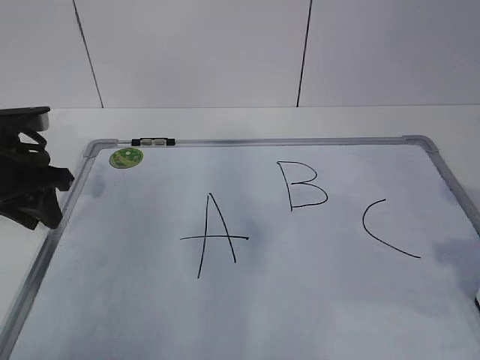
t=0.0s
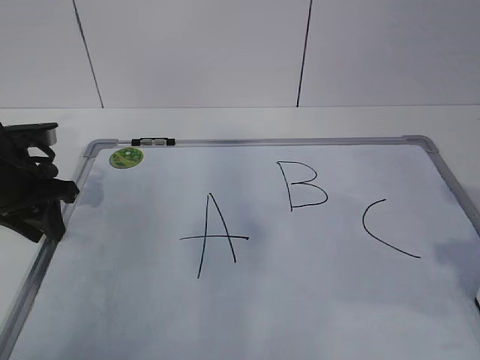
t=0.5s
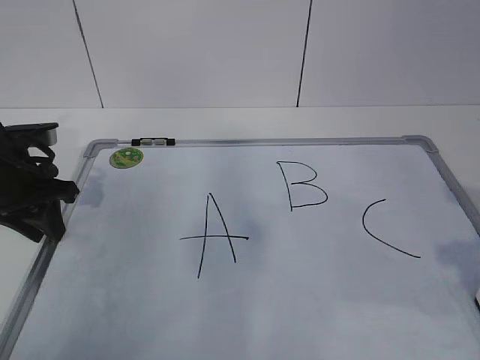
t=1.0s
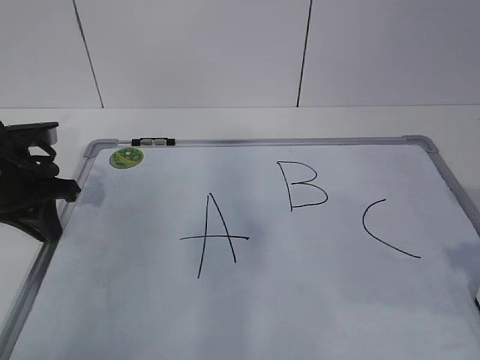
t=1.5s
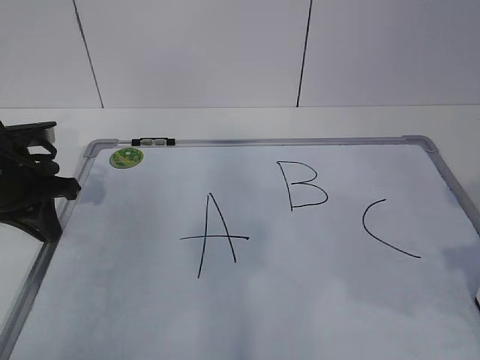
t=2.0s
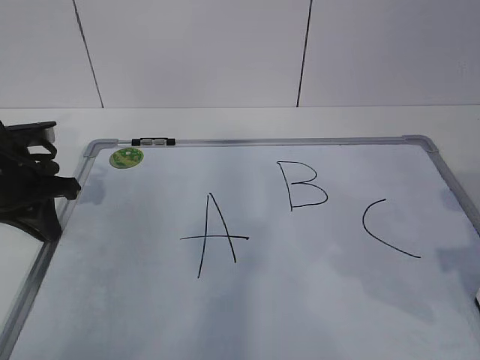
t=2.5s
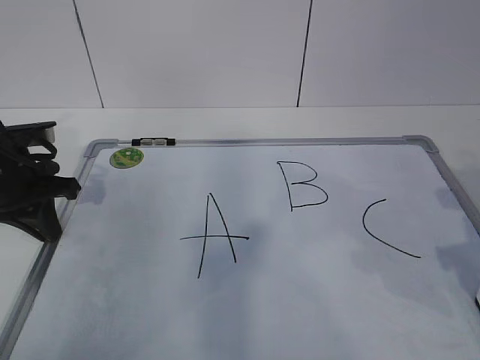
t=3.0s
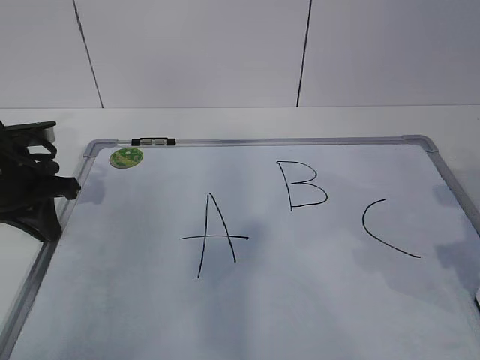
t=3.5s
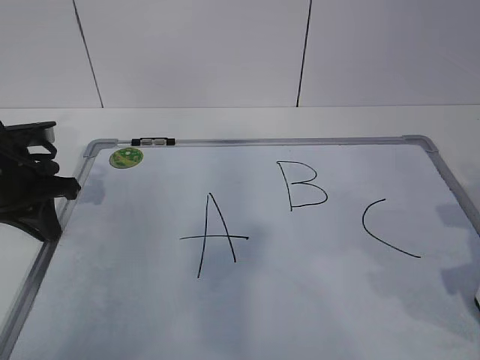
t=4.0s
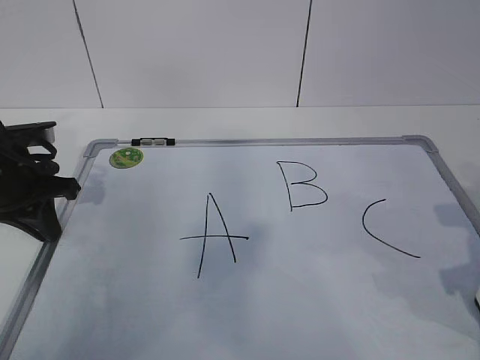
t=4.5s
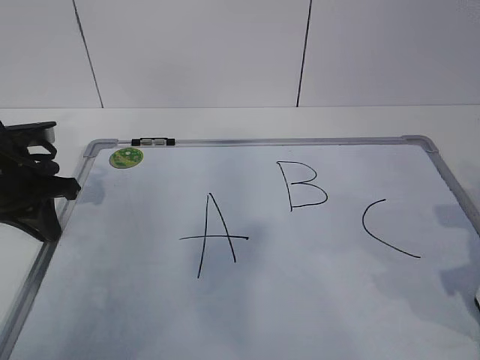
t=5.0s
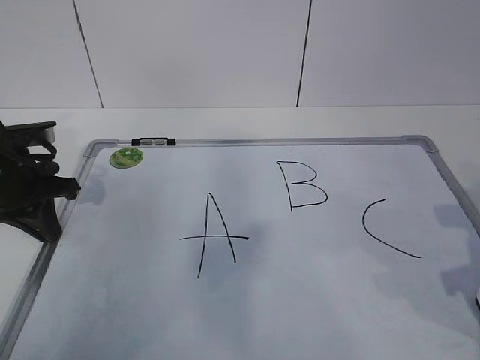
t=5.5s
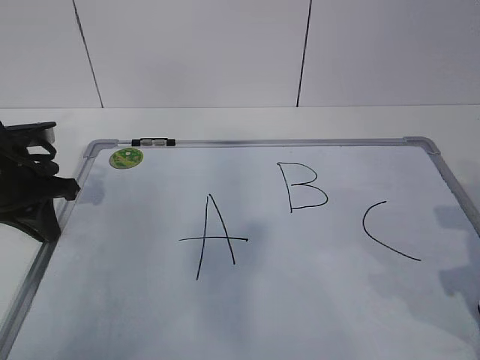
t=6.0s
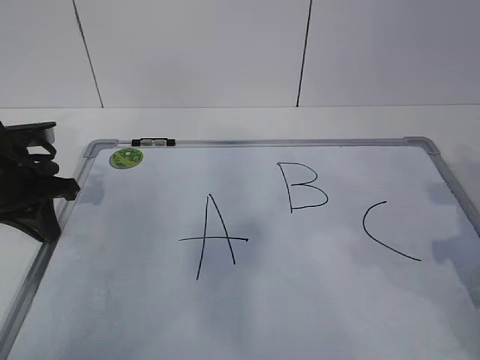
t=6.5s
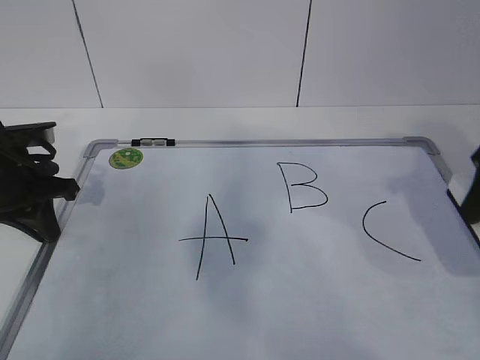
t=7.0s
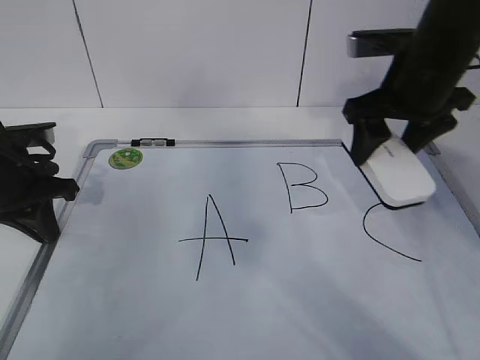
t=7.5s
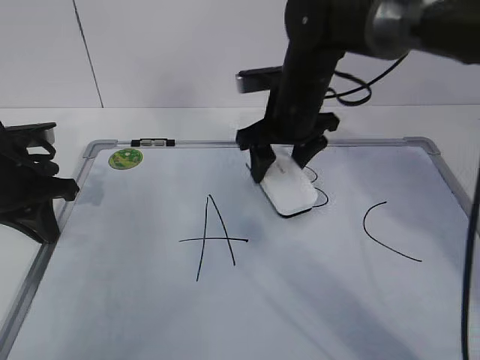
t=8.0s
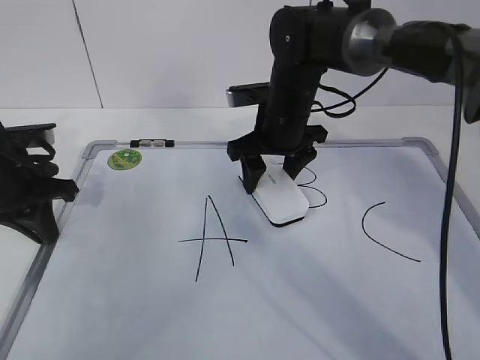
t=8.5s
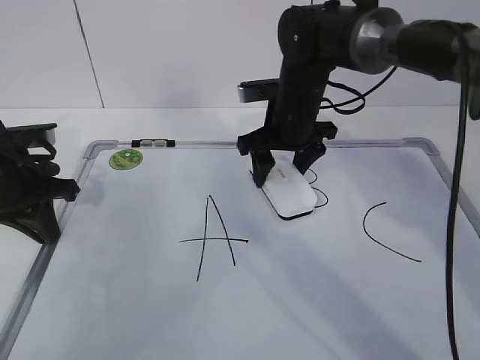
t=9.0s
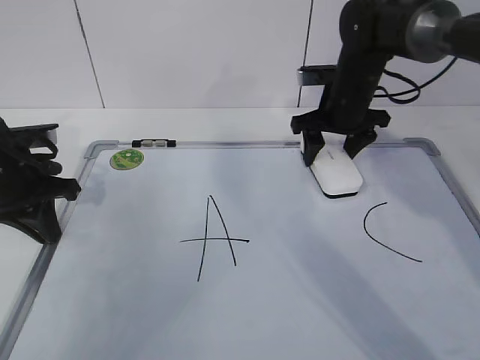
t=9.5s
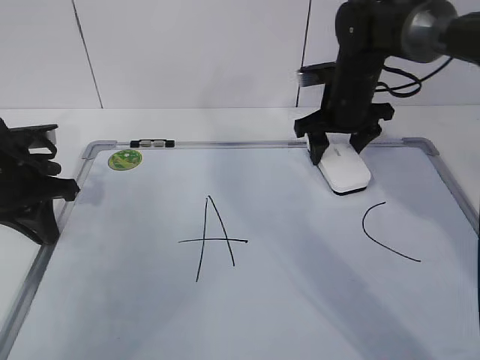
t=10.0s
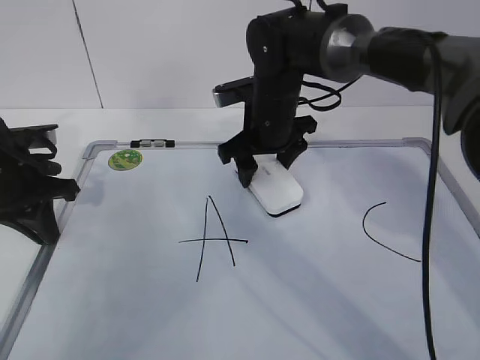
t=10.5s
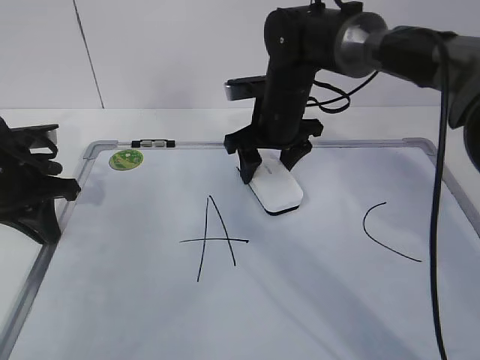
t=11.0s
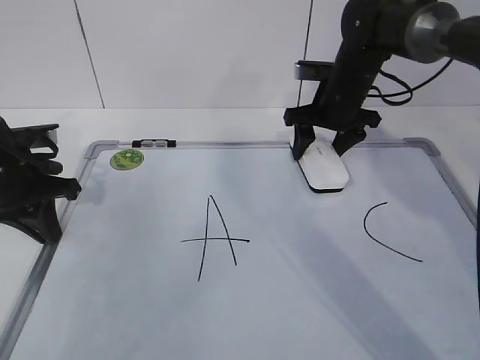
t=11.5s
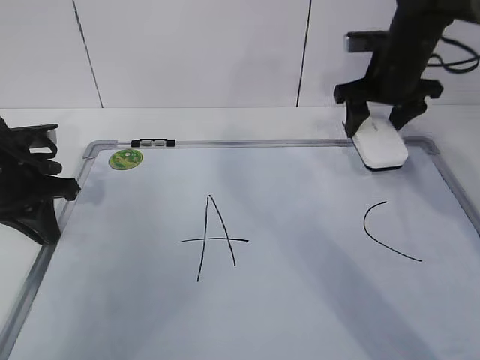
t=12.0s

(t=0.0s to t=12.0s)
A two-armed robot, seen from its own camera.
Task of the whole recording: pick up the eraser on the blackboard and erase the letter "B".
Step, t=4.5s - t=9.0s: Erase the letter B with your right hand.
Step, t=9.5s - t=11.5s: Put down the eraser with your right hand.
t=0.0s - t=2.0s: The left gripper closes its fingers.
t=4.0s - t=6.0s: Both grippers stay put.
t=6.0s - t=8.0s: The right gripper goes approximately 30 cm forward and to the left.
t=8.0s - t=10.0s: The right gripper travels to the right by some 10 cm.
t=10.0s - t=12.0s: The right gripper reaches about 10 cm to the left, then returns.

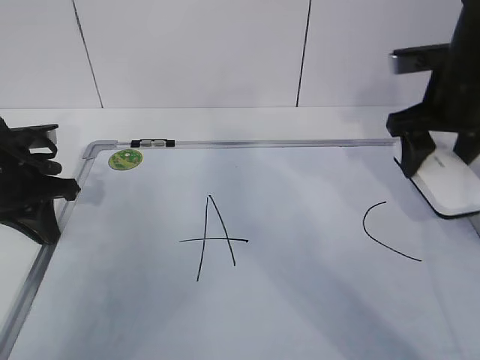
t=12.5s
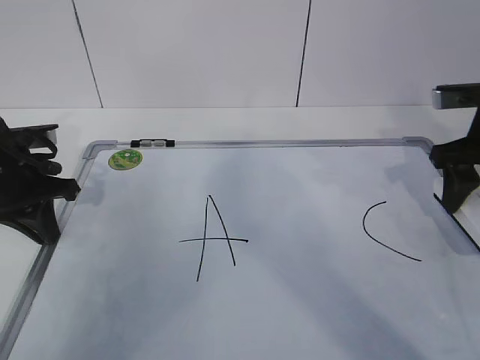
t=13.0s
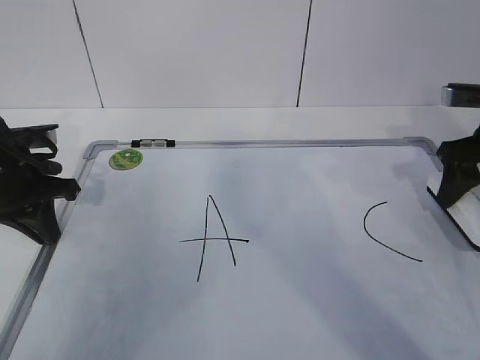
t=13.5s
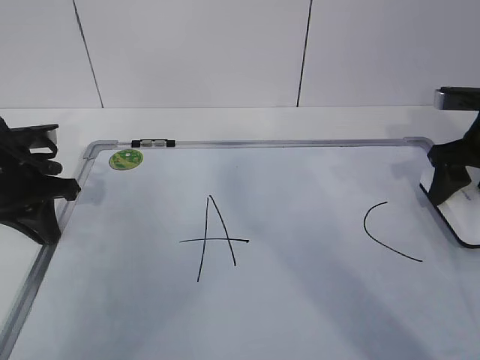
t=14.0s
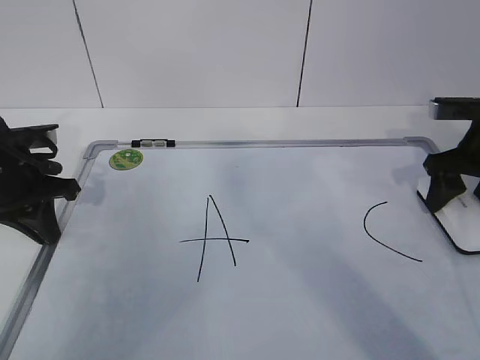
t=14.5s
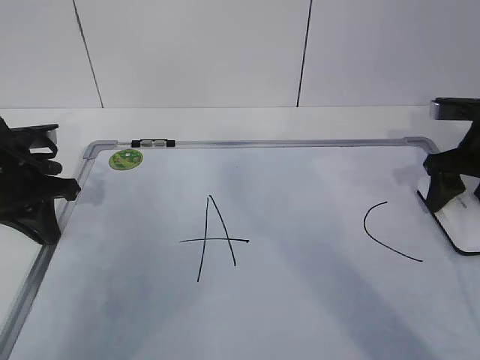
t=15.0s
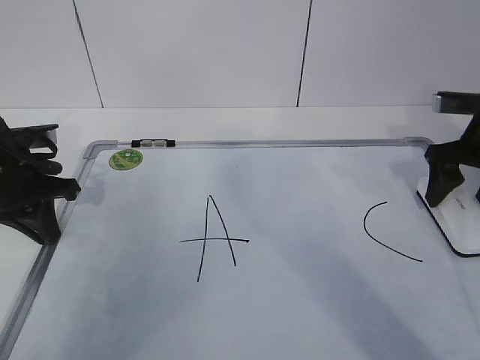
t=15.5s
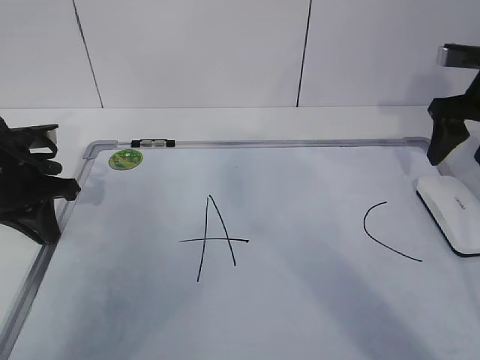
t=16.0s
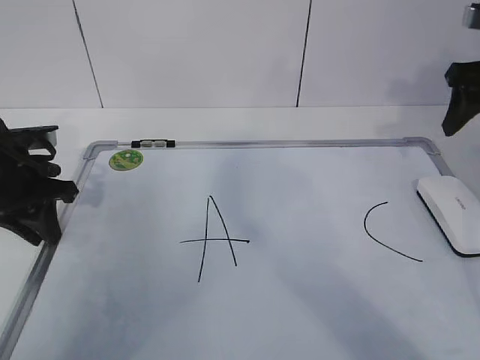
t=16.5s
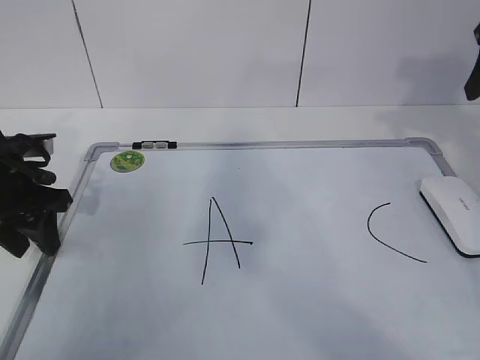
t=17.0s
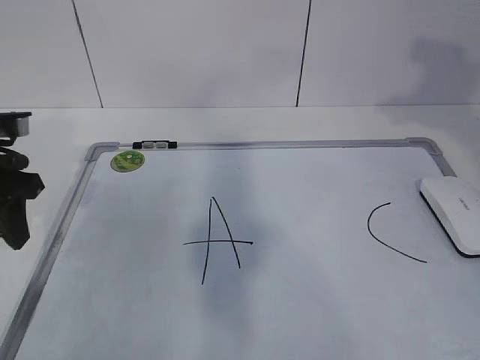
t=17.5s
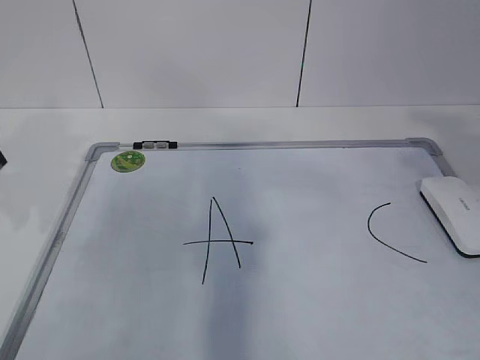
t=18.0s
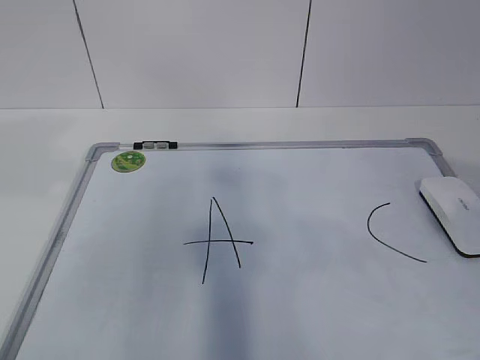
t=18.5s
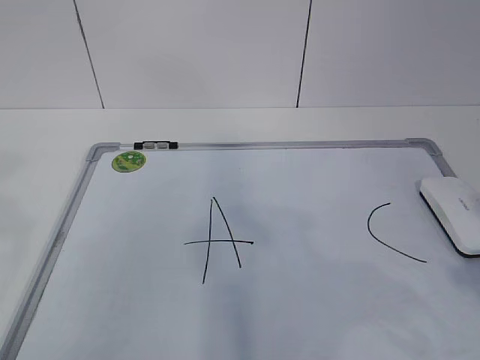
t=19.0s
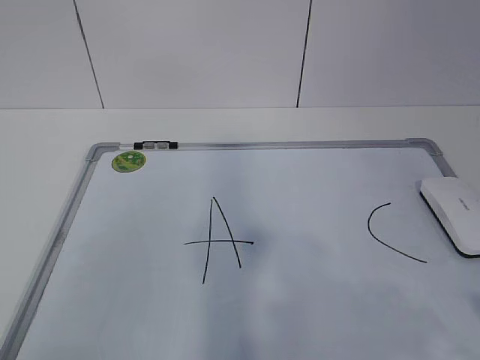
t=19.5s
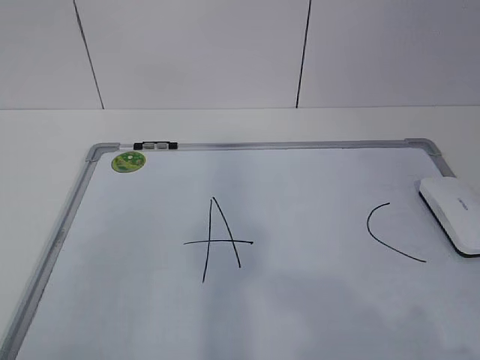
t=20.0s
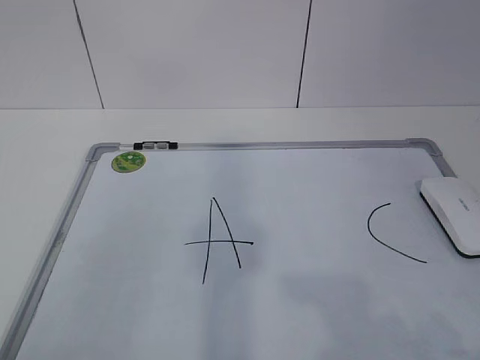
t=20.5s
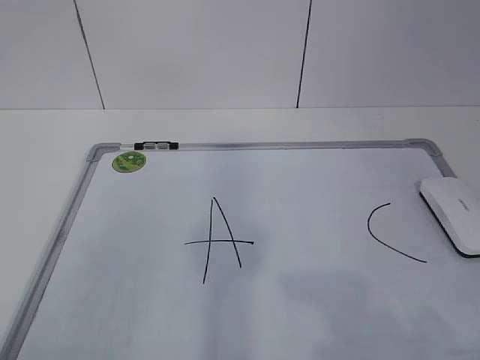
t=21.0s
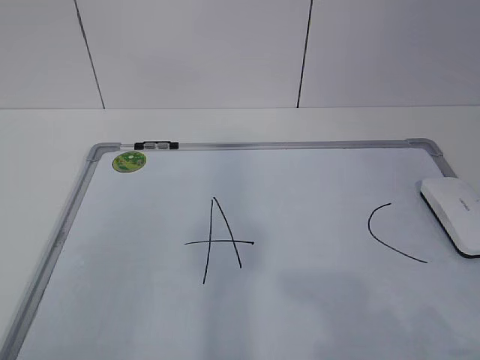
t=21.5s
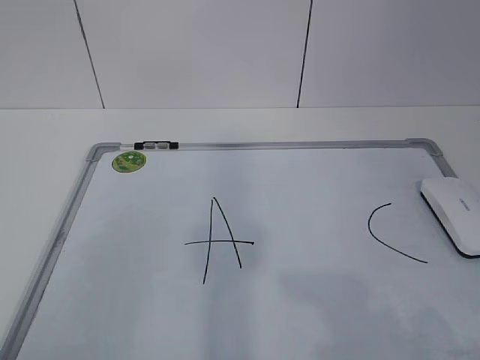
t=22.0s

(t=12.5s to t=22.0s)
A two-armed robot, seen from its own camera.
Task of the whole recording: pick up the eraser on the blackboard and erase the letter "B".
t=12.5s - t=14.5s: The right gripper is displaced to the right and downward by some 10 cm.
t=14.5s - t=16.5s: The right gripper travels upward by about 10 cm.
t=16.5s - t=18.0s: The right gripper shifts about 25 cm backward and upward. Meanwhile the left gripper moves upward and backward, approximately 10 cm, and opens its fingers.
t=18.0s - t=20.0s: The right gripper is displaced backward and downward by some 20 cm, and closes its fingers, while the left gripper heads backward, covering some 30 cm.

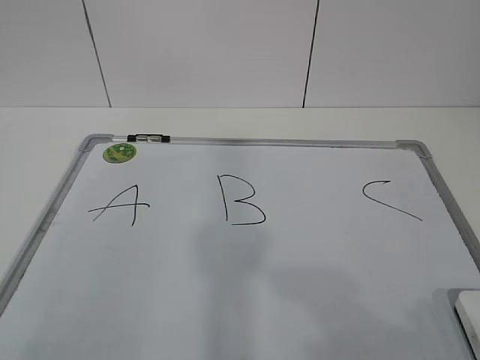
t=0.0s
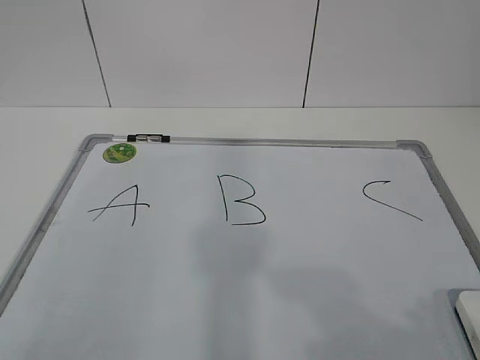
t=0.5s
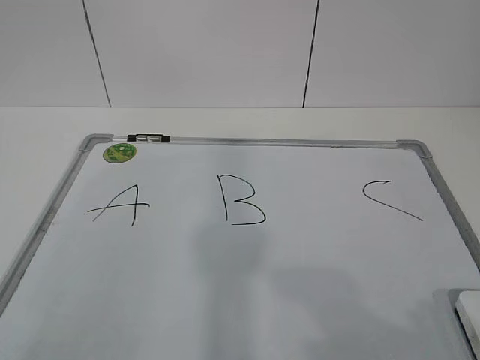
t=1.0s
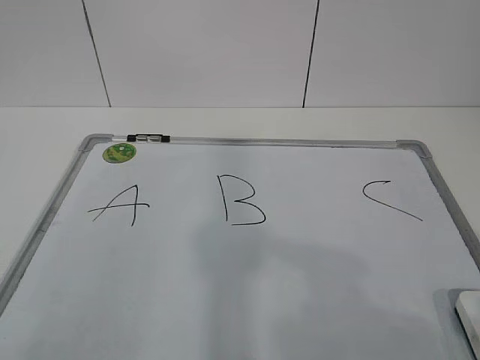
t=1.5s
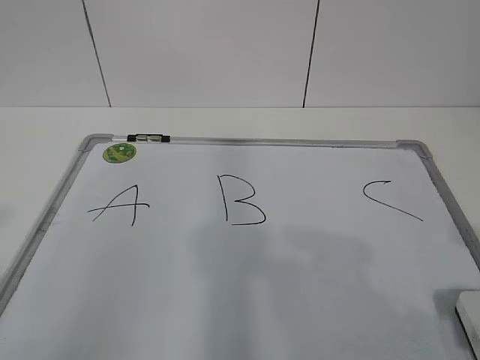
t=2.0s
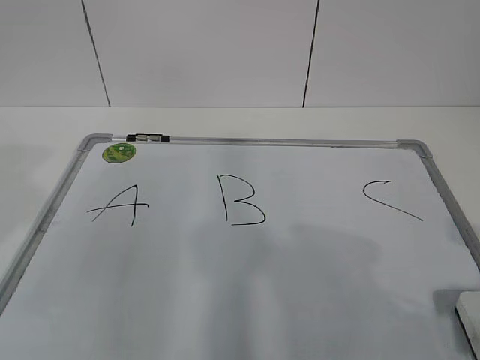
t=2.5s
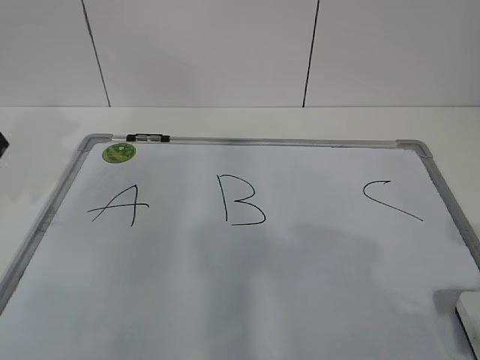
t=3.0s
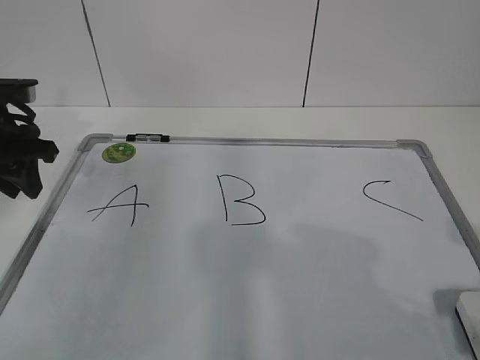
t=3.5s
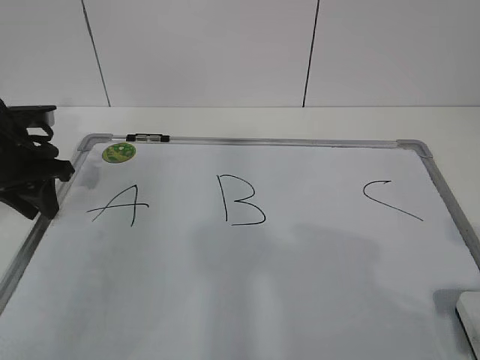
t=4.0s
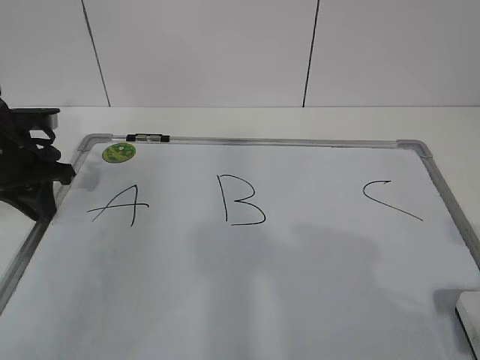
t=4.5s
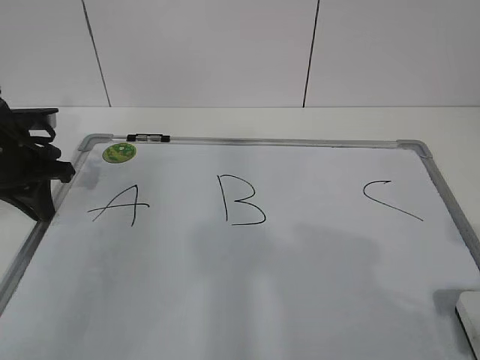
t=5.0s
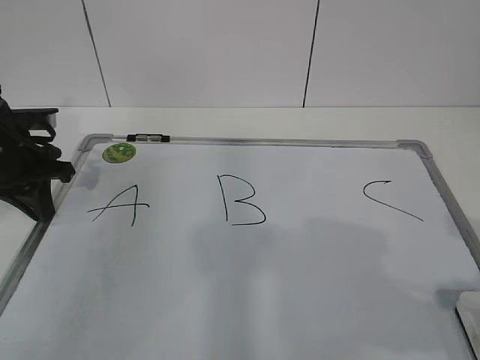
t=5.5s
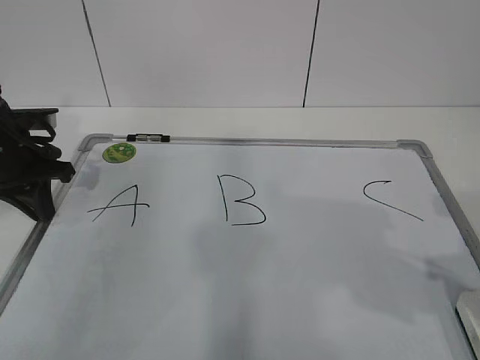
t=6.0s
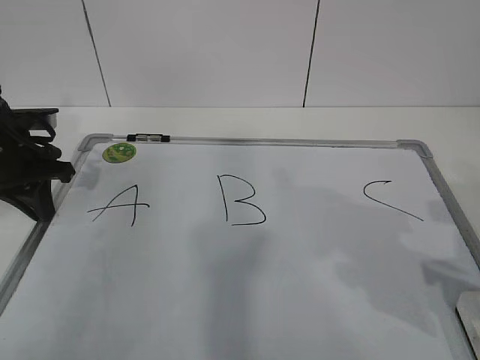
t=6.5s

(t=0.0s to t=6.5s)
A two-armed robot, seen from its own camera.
Task of the whole recording: pick up the eraser on the blackboard and erase the letter "B".
Step, t=0.0s - t=3.5s: Hold the drawing board steady with your left hand.
t=2.0s - t=4.5s: The left gripper is displaced forward and downward by roughly 35 cm.
t=4.5s - t=6.5s: The right gripper shifts about 10 cm forward and downward.
